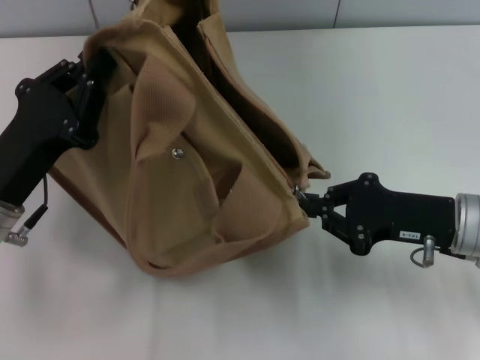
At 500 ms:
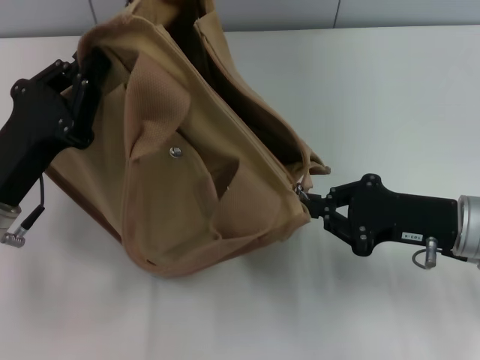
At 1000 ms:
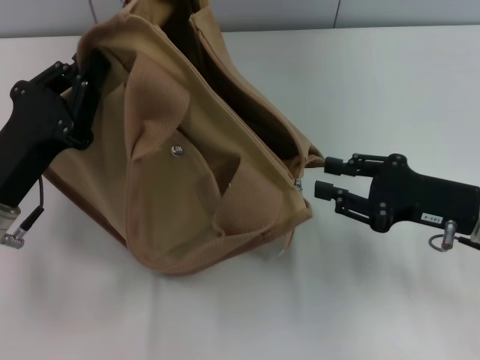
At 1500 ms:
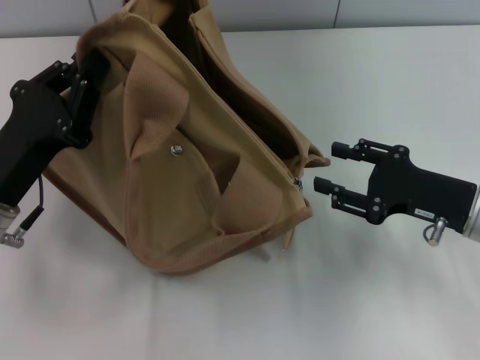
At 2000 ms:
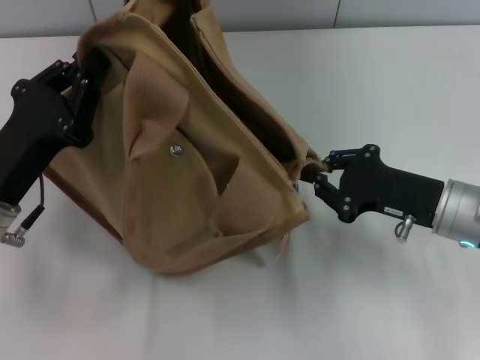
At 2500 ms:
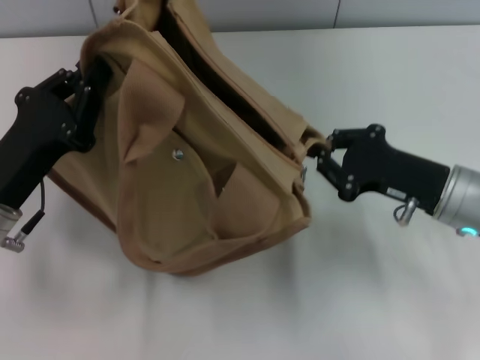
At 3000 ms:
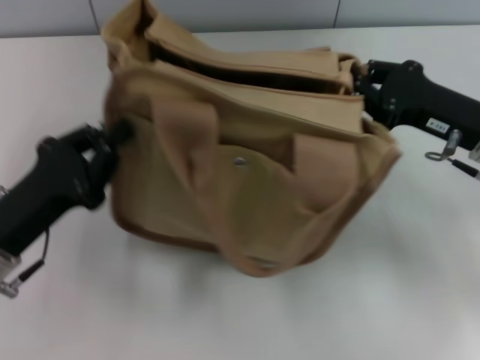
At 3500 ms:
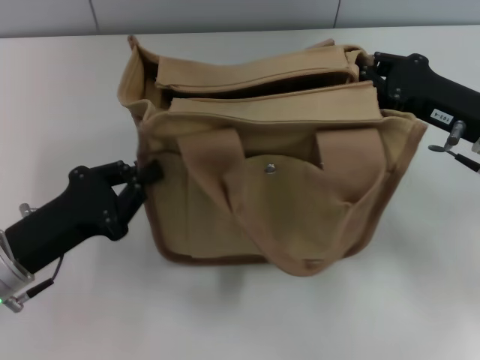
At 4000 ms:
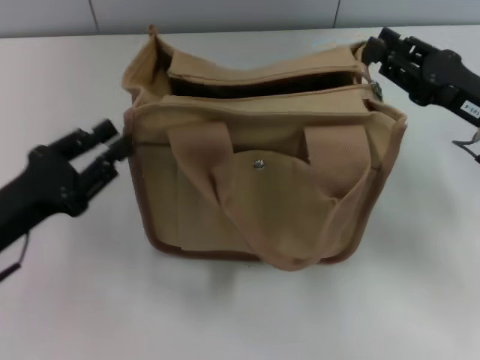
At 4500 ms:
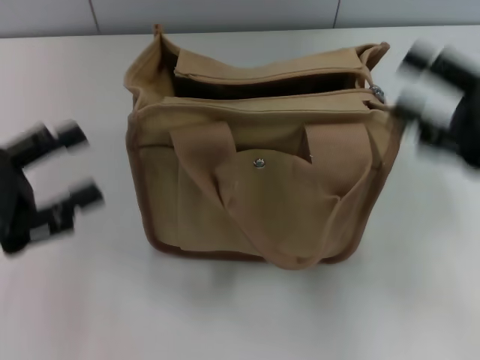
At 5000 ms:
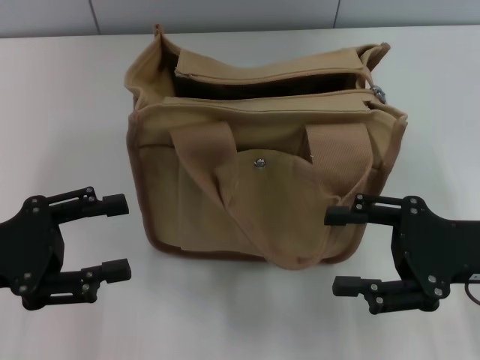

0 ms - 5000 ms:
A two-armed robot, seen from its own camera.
Step, 1000 ms - 4000 ms: Grab the bag with your left hand.
0 ms - 2500 ms: The right gripper opens and closes again.
2500 ms - 5000 ms: The left gripper shifts approximately 5 cm to the left, and opens up, while the right gripper moves backward, approximately 5 cm, and opens its fingers.
